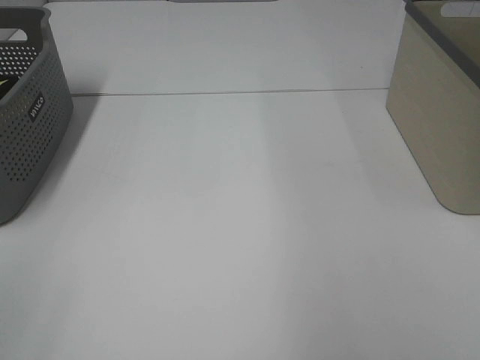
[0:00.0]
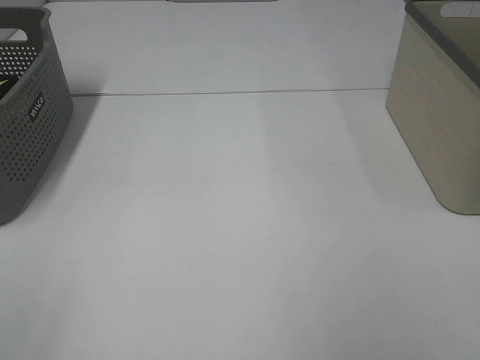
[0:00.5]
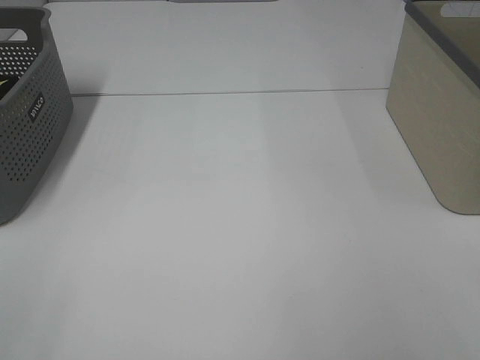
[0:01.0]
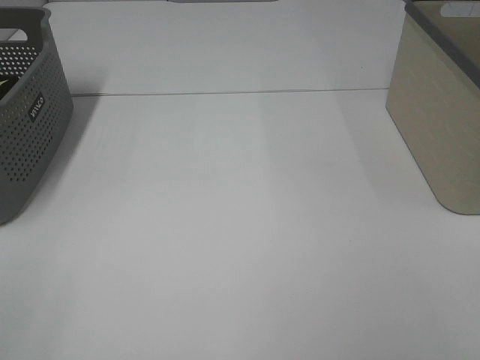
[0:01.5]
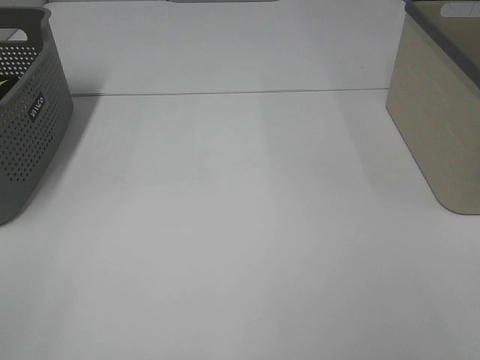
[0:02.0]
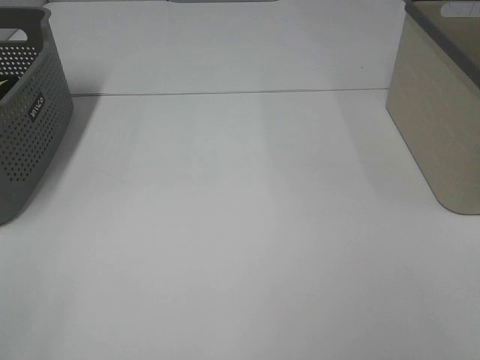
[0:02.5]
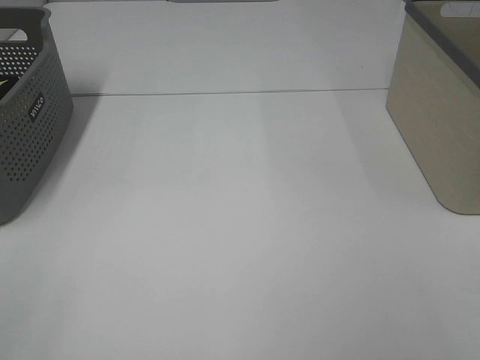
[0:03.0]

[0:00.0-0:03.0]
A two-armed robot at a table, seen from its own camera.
0:01.5 to 0:03.0: Both grippers stay about where they are.
